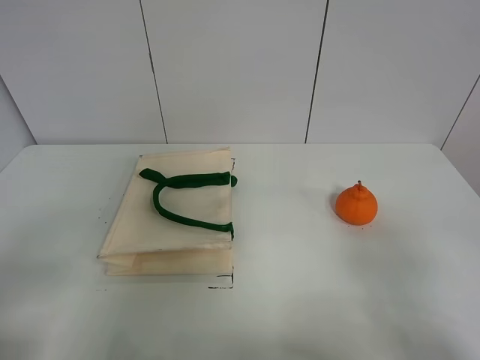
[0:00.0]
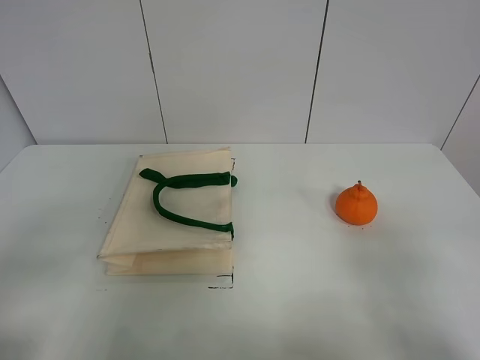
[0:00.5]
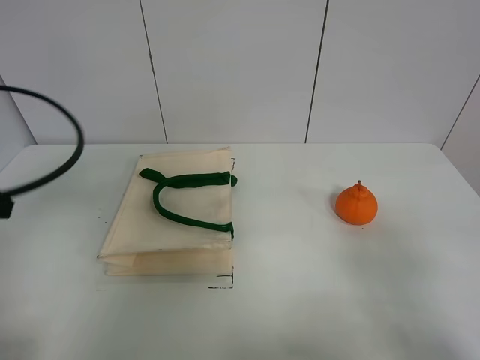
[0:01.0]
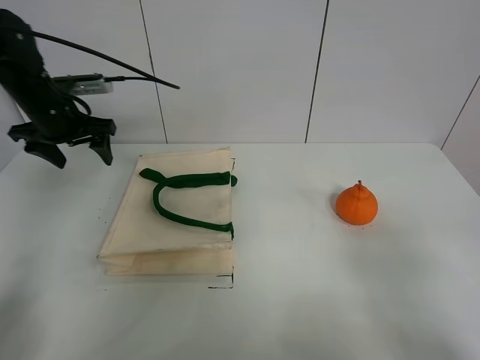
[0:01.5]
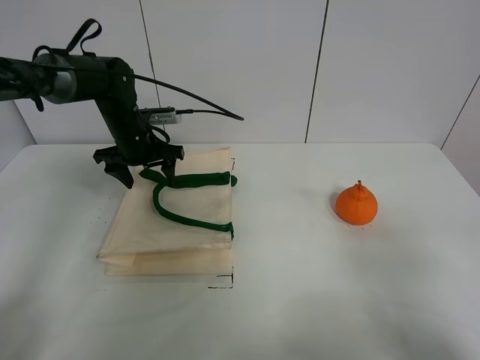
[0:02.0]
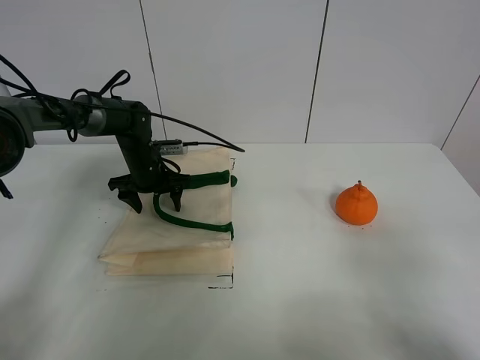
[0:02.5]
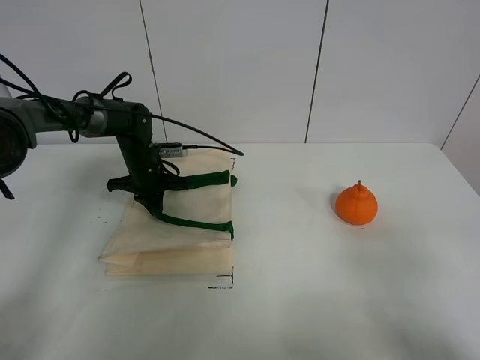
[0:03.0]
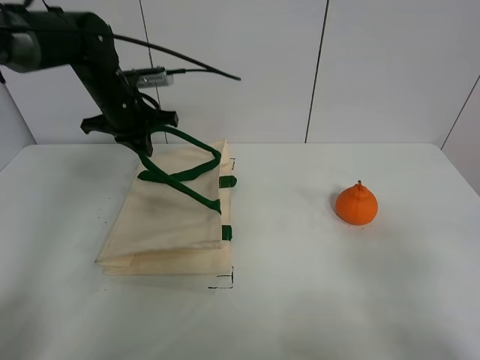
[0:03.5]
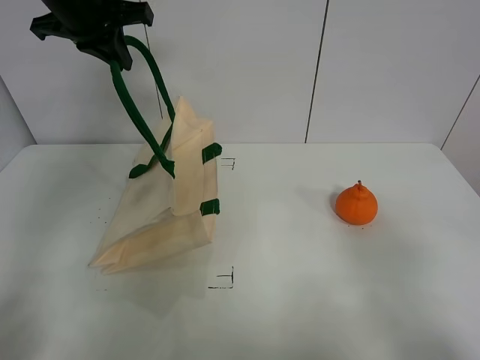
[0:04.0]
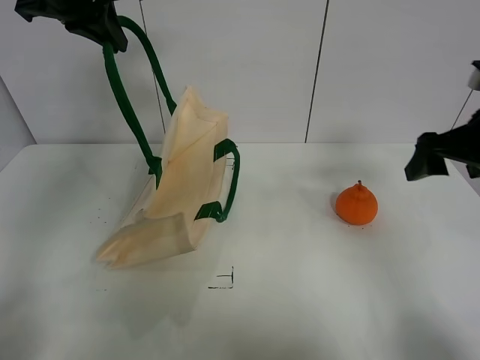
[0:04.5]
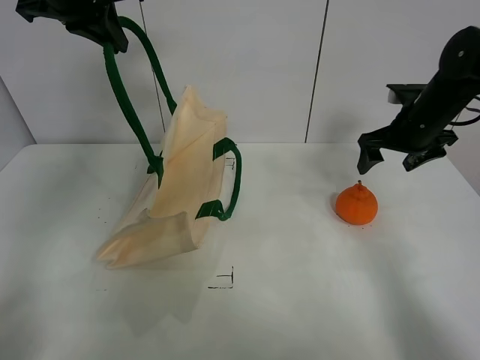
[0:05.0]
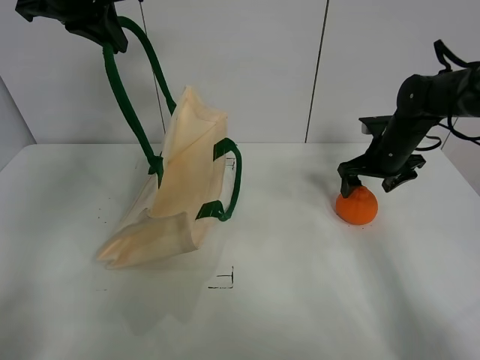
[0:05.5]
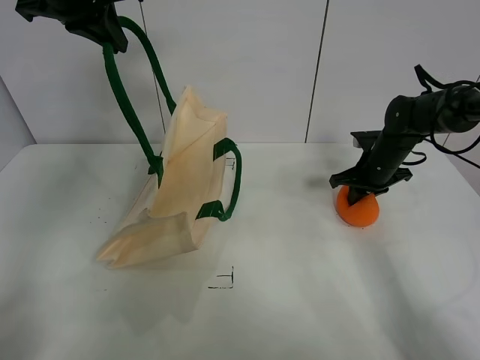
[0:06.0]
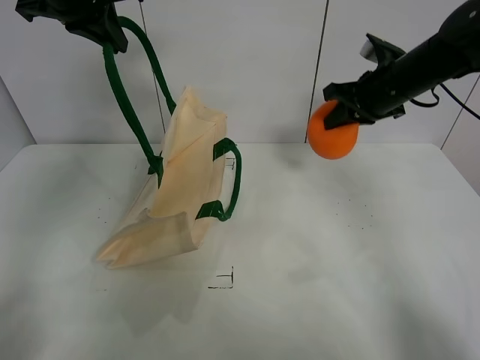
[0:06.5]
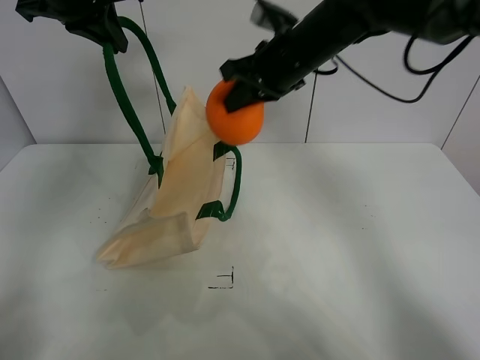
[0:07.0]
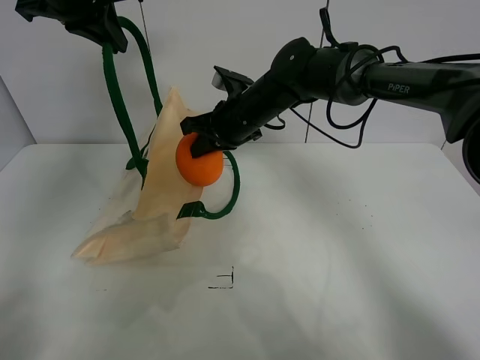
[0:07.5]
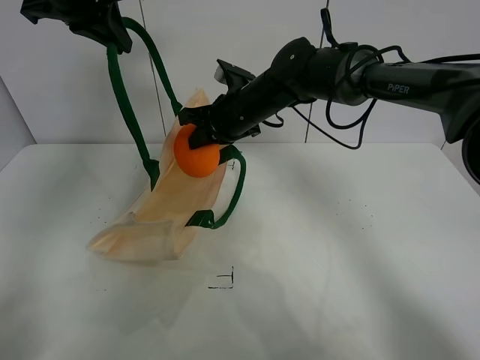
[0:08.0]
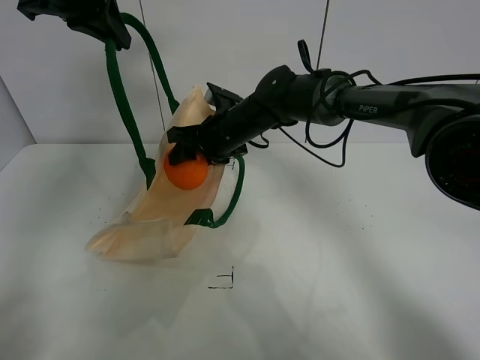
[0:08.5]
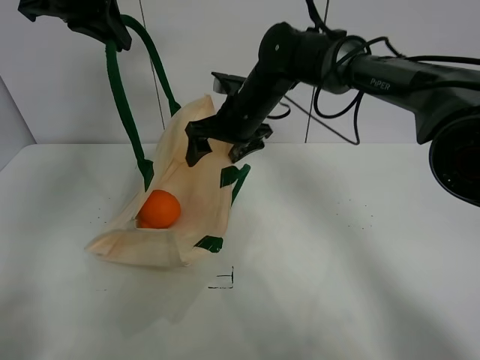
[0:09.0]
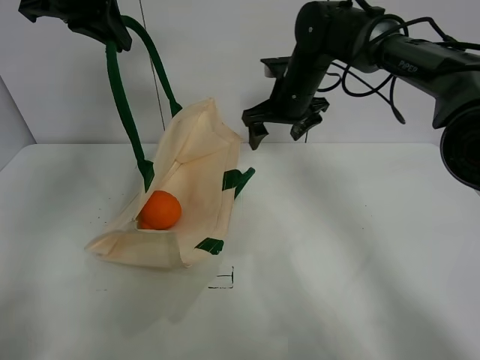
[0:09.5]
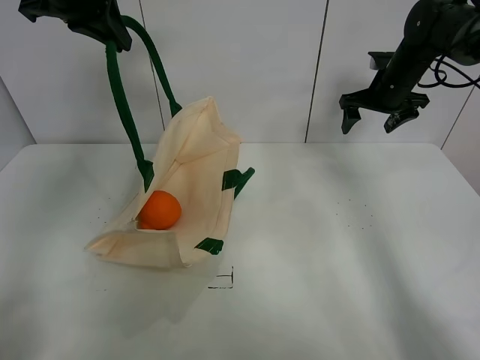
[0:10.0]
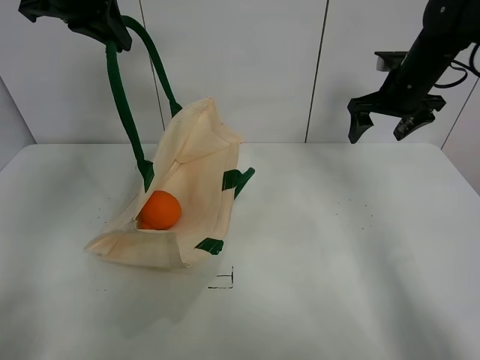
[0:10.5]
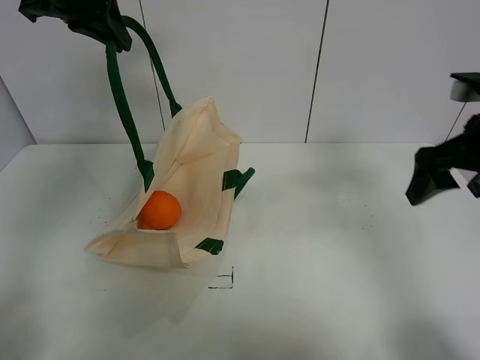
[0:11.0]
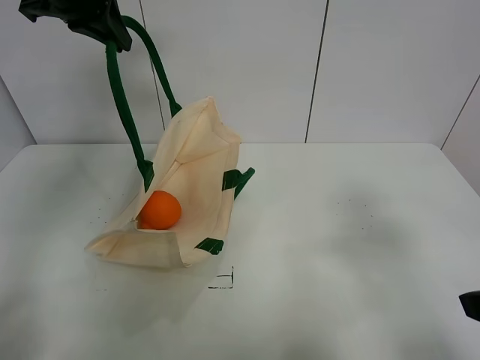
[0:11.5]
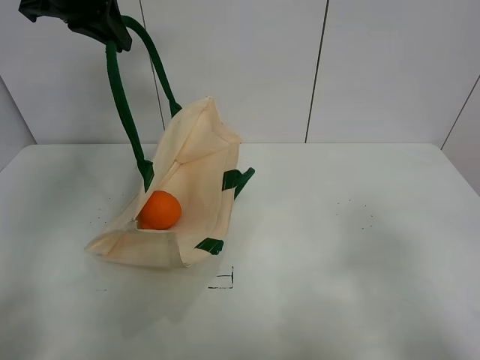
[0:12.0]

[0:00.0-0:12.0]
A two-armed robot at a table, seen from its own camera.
Task of the whole recording: open the white linen bag and put the orange in the bag.
Step, 0:00.0 to 0:03.5: Lift the handbag with left gripper.
Step, 0:04.0 to 0:06.0: Grasp the orange with right gripper.
Step, 0:06.5 to 0:08.5: Place the orange in the handbag with right gripper.
0:00.0 to 0:02.0: The left gripper shifts approximately 40 cm forward.
0:02.0 to 0:04.0: The left gripper travels upward by some 25 cm, and closes its fingers.
0:04.0 to 0:06.0: The right gripper heads forward and downward, covering approximately 40 cm, and closes.
0:06.0 to 0:08.0: The right gripper moves to the left and upward, about 25 cm.
0:08.0 to 0:10.0: The right gripper goes roughly 25 cm to the right, and opens its fingers.
0:10.0 to 0:12.0: The right gripper is displaced backward by approximately 50 cm.

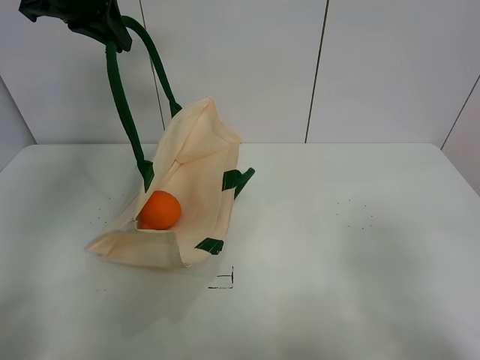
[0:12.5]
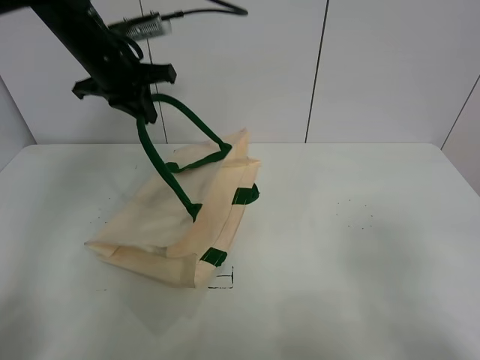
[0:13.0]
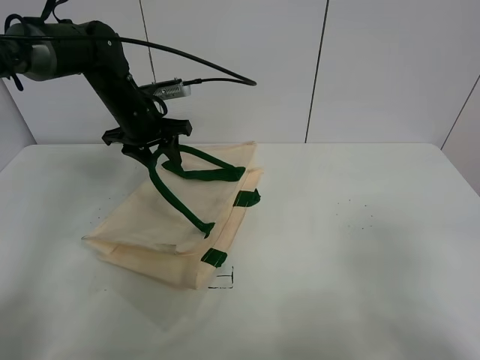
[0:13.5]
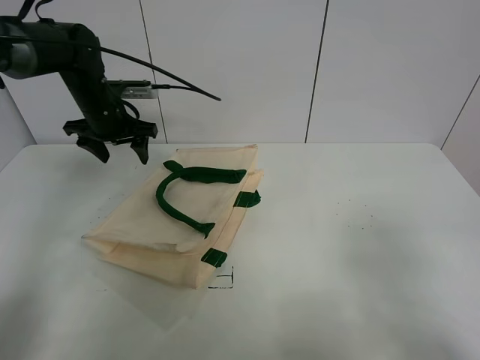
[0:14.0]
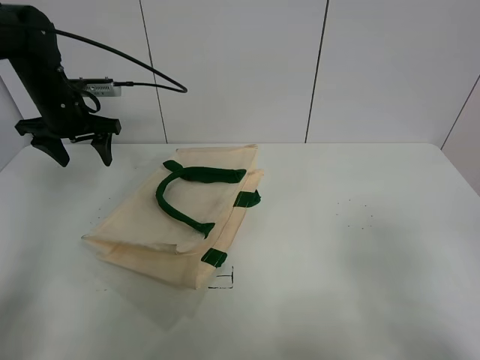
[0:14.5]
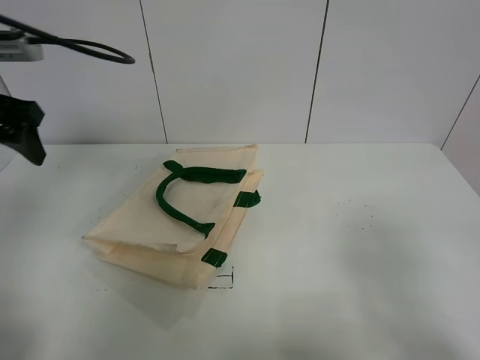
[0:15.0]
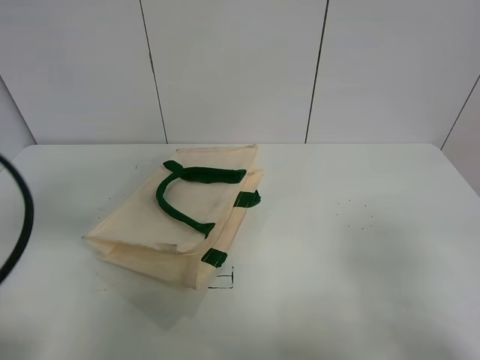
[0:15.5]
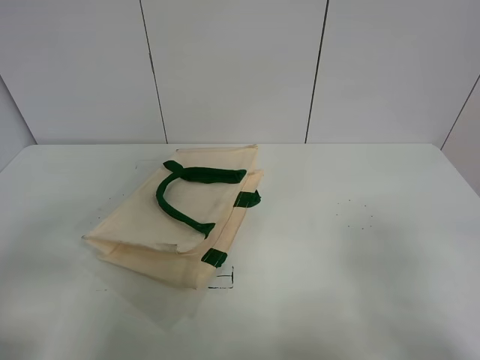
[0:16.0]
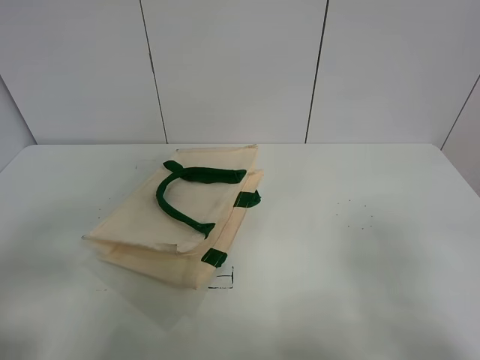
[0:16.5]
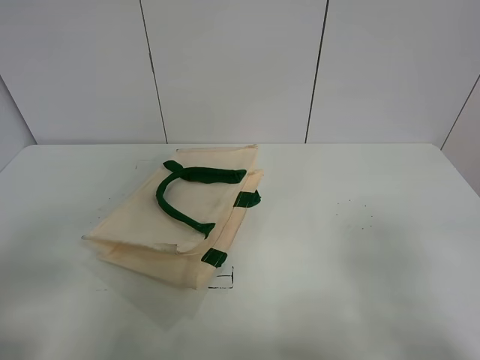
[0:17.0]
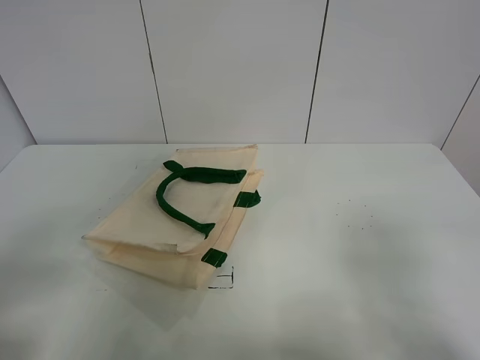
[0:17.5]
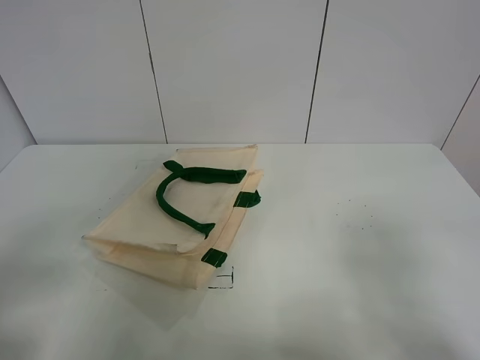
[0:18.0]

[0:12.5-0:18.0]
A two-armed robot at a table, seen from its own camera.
Task of the whole recording: open the white linen bag and put the orange in the bag.
0:12.5 to 0:14.5: The left gripper shifts some 20 cm downward and to the left, and opens.
0:14.5 to 0:16.0: The left gripper goes approximately 40 cm backward.
